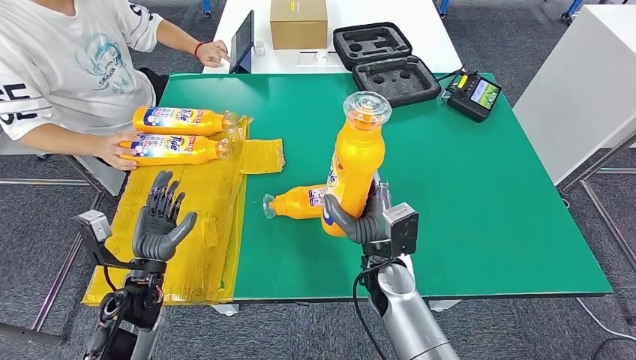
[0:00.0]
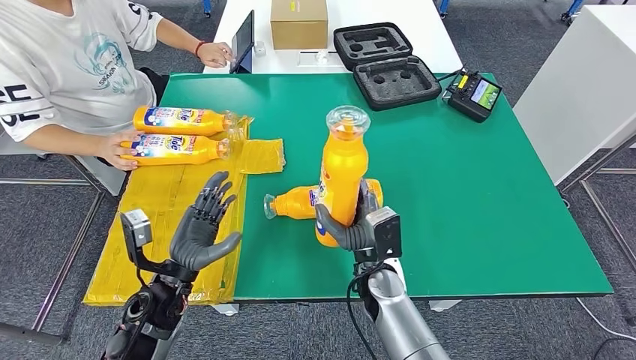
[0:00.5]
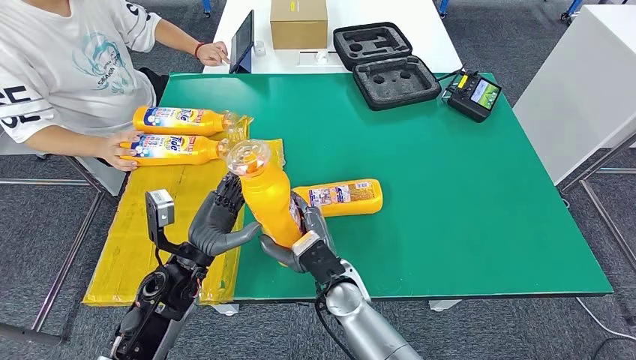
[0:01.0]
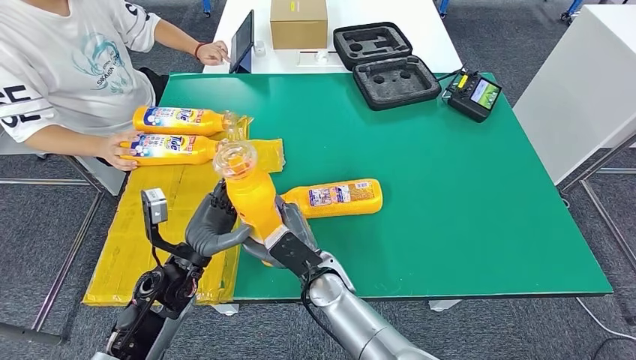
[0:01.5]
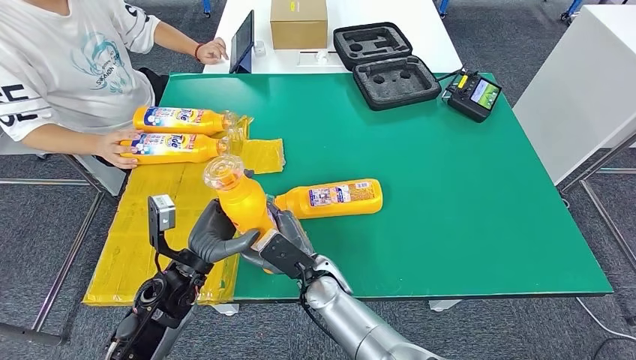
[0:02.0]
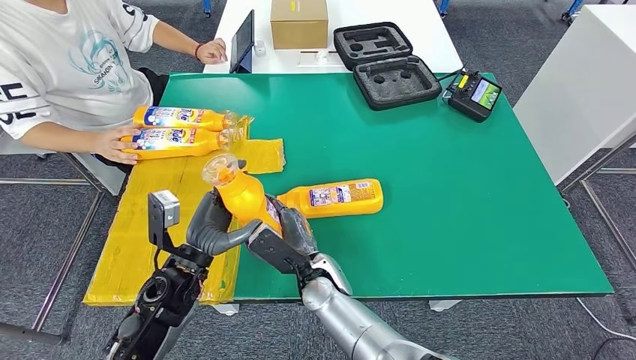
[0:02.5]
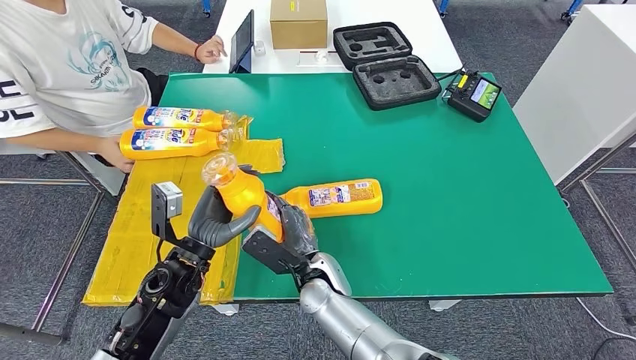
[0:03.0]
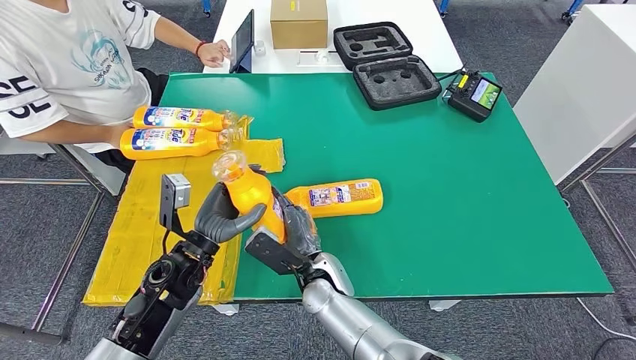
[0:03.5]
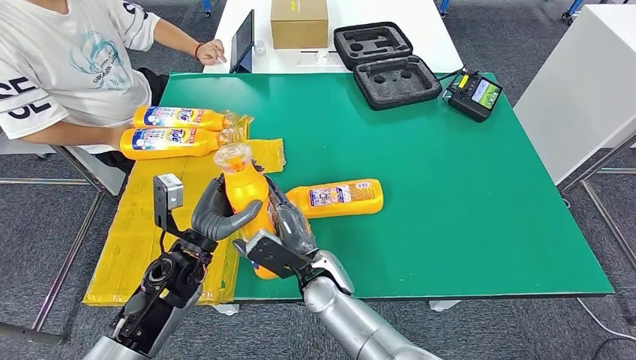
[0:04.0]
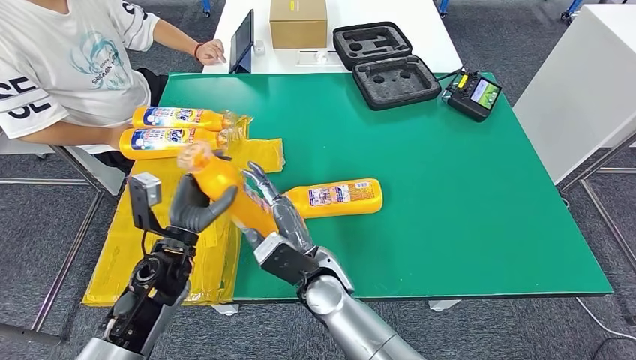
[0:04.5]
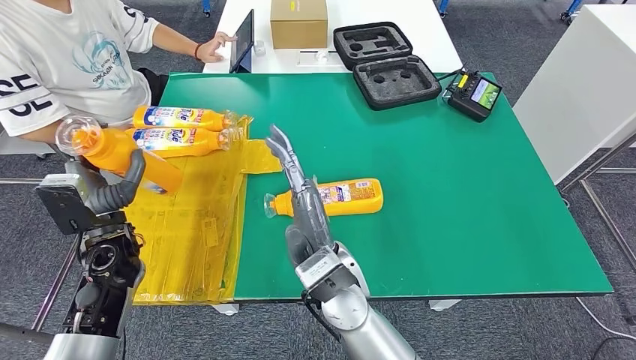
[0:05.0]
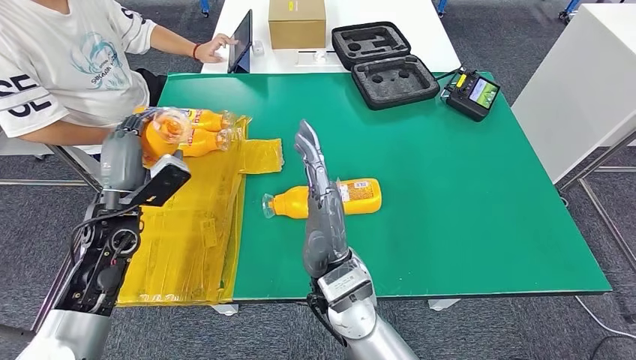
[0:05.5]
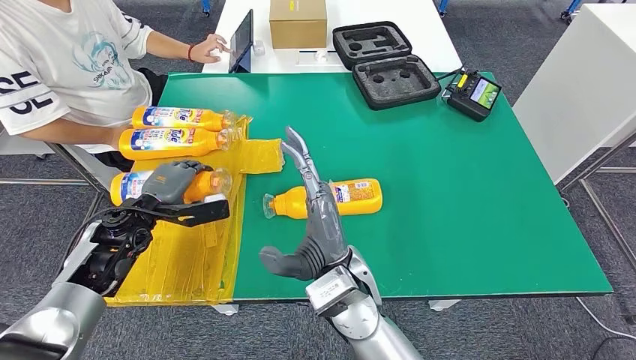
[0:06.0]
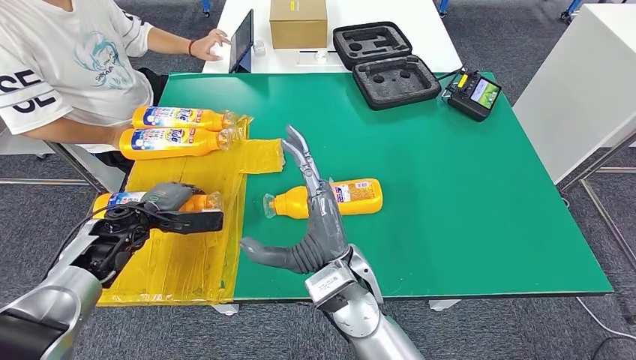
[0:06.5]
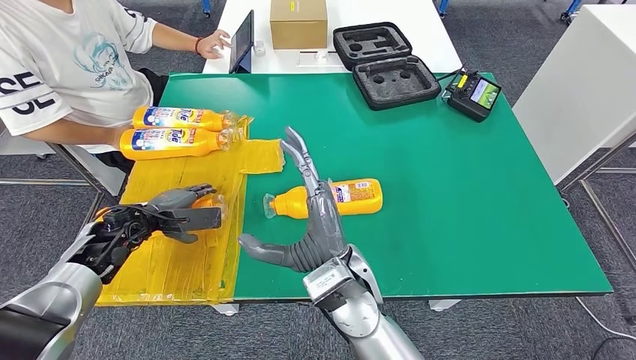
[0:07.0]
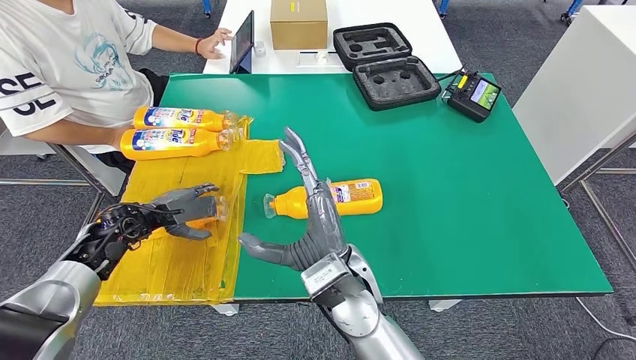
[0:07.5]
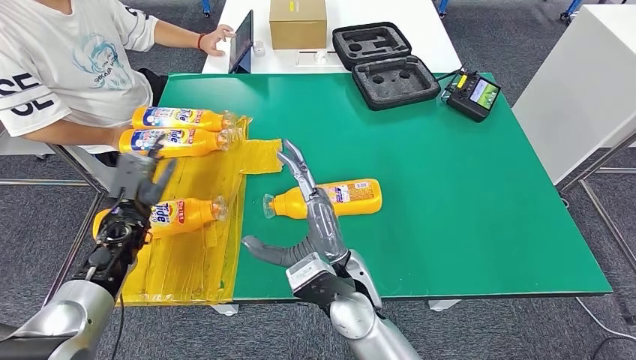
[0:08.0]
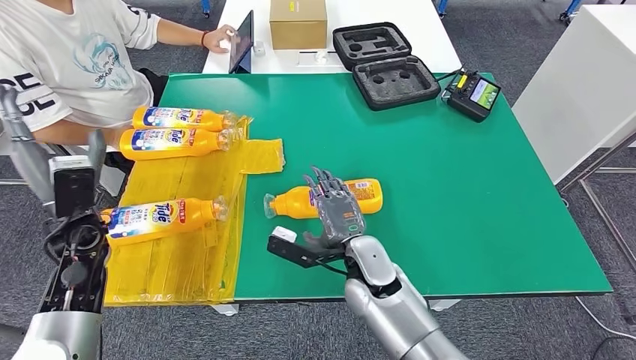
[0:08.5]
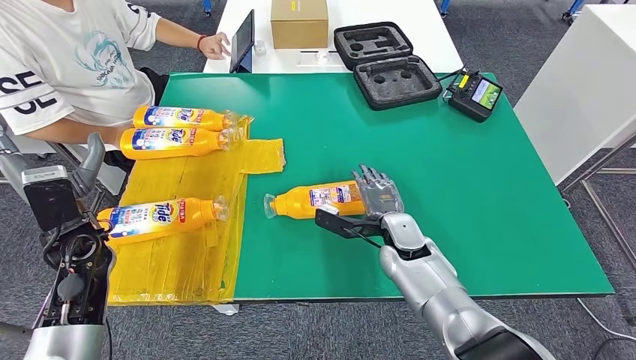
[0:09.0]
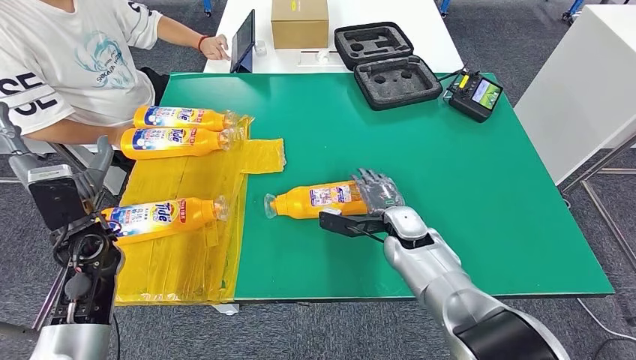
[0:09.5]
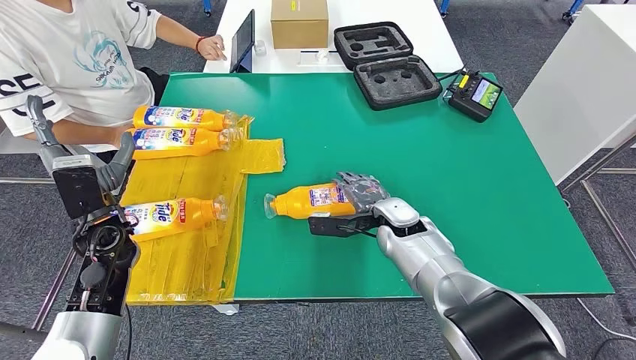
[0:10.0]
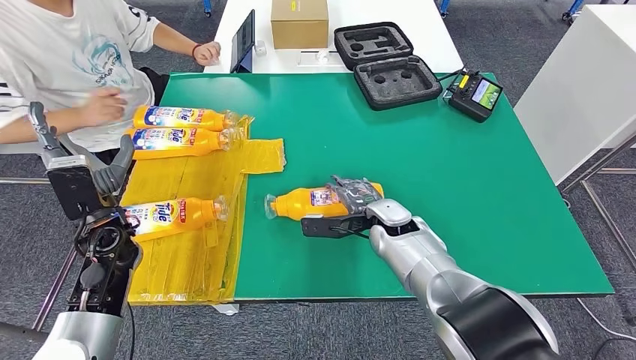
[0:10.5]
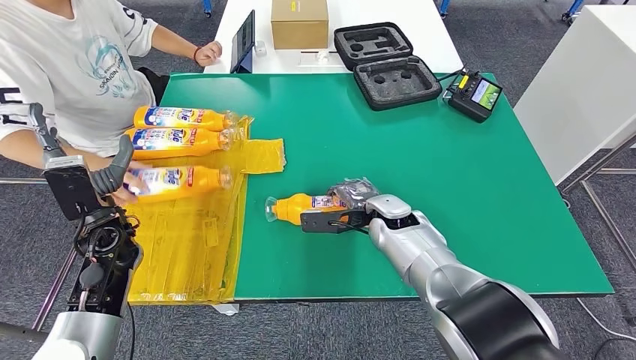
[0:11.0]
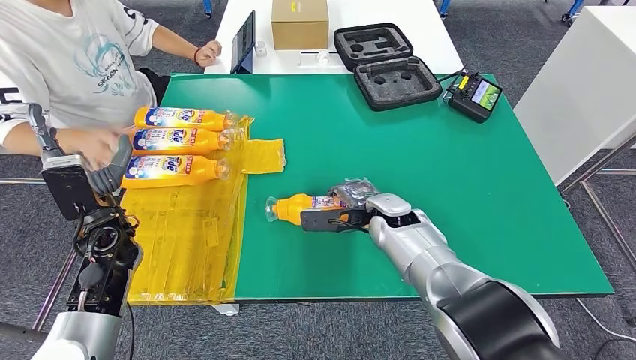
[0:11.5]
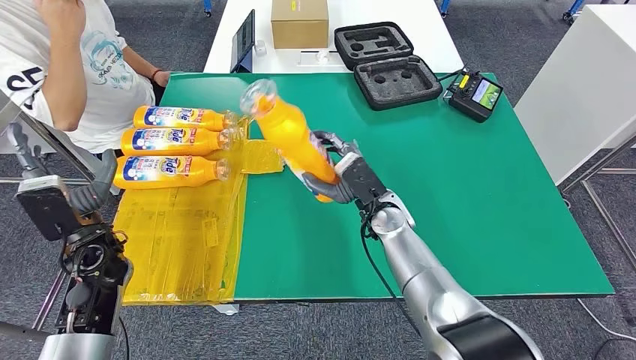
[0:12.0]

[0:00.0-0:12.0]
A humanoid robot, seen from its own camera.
Step, 0:00.0 to 0:08.0: Flip the fast-moving consumer goods bottle to the front side.
0:00.0 to 0:02.0: The left hand moves to the right, some 10 cm, while the right hand heads to the left, covering roughly 15 cm.
0:02.0 to 0:04.0: The hands stay close to where they were, moving slightly.
0:06.0 to 0:08.0: The left hand shifts by some 5 cm.

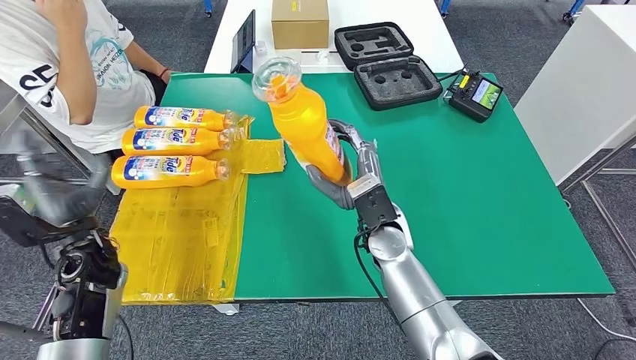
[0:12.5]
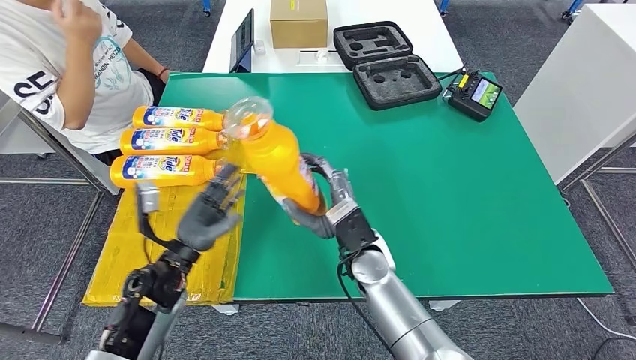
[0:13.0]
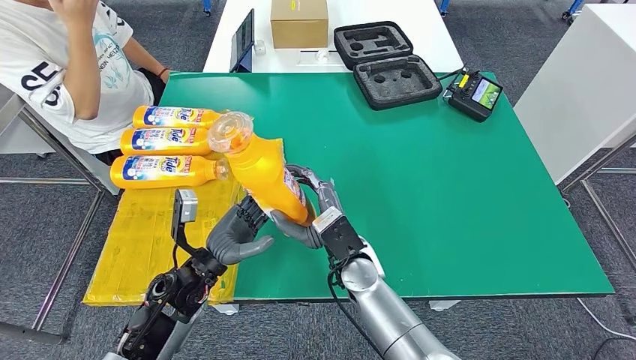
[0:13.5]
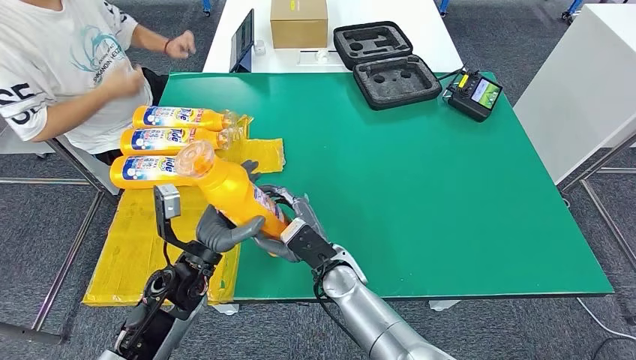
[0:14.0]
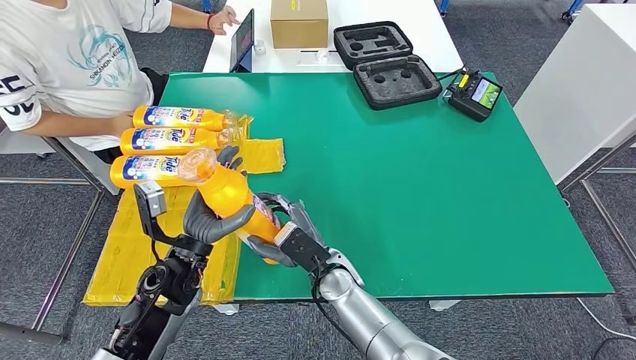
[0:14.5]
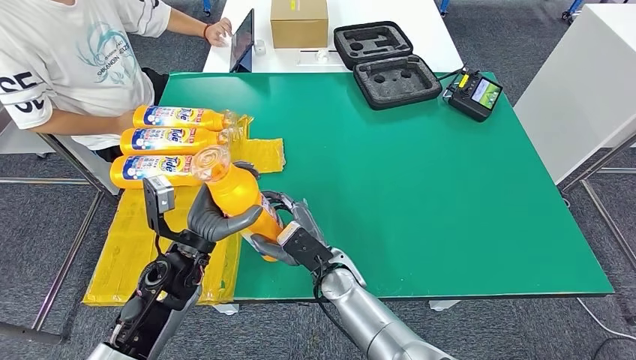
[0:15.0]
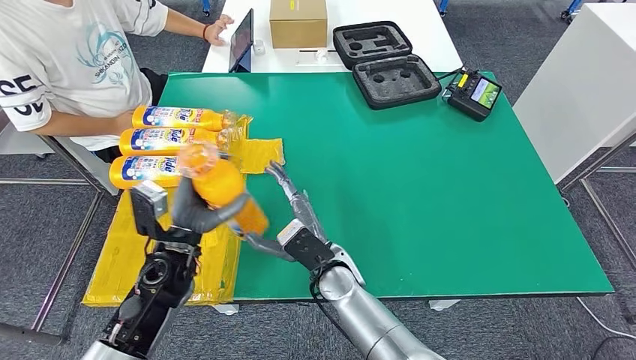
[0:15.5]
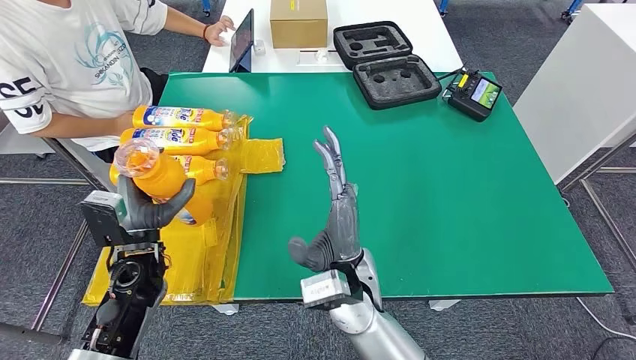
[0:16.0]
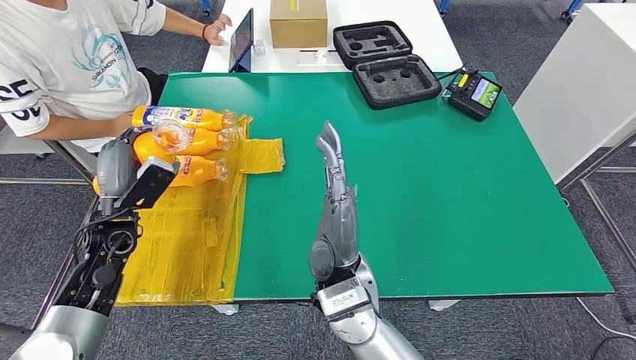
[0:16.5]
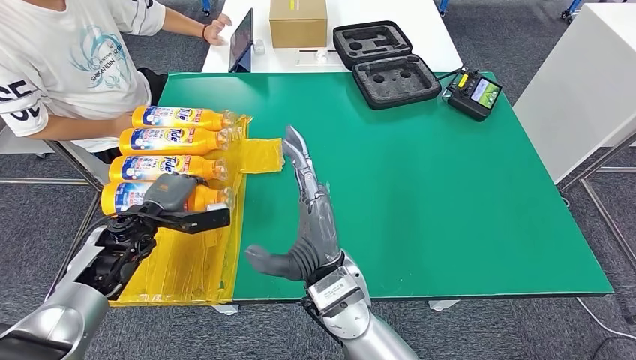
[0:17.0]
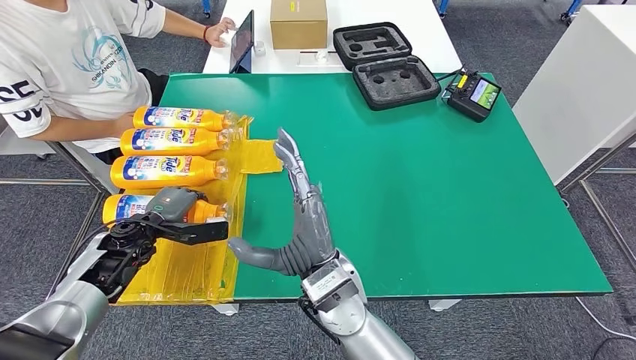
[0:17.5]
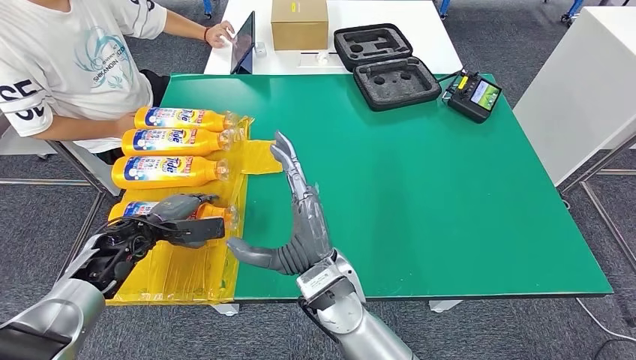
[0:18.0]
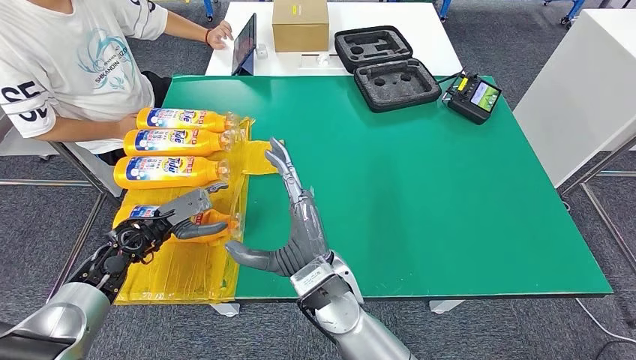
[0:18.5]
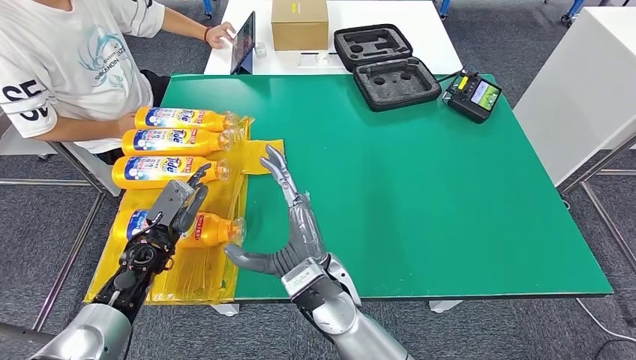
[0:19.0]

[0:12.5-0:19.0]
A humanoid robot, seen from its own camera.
Step, 0:13.5 to 0:19.0: Flip the fast-moving consumer goods bottle to the front side.
0:14.5 to 0:17.0: The right hand goes about 10 cm upward. Meanwhile the left hand shifts approximately 15 cm to the left and forward.
